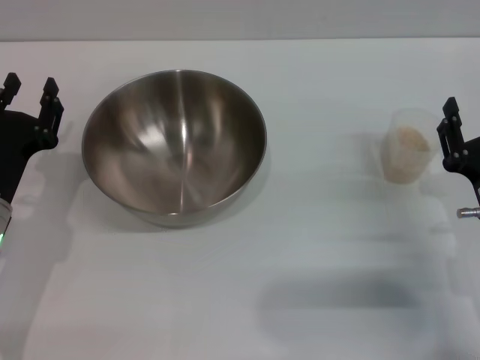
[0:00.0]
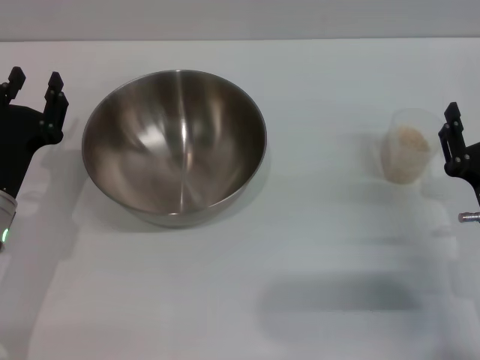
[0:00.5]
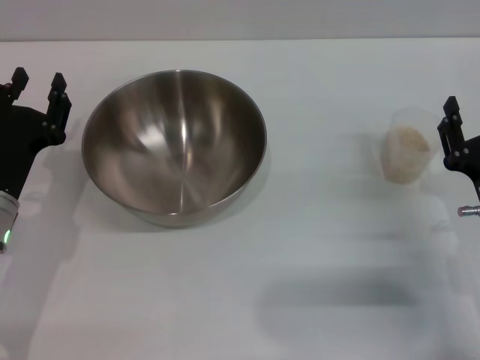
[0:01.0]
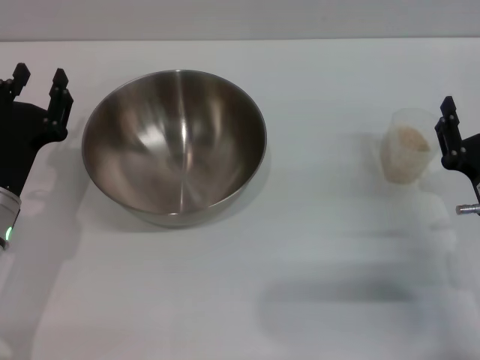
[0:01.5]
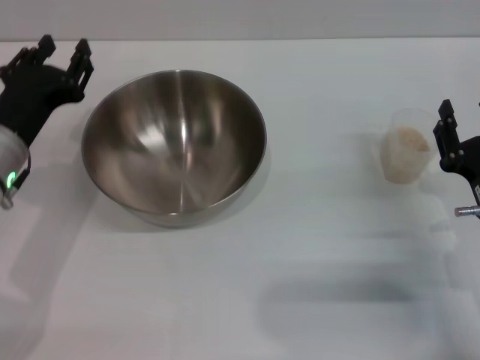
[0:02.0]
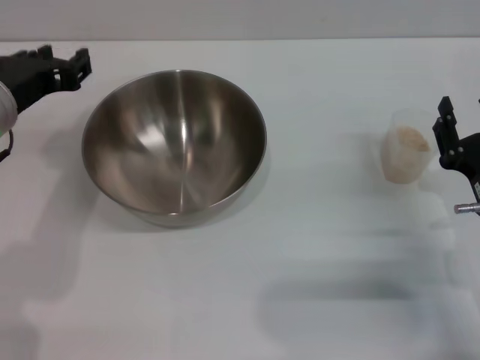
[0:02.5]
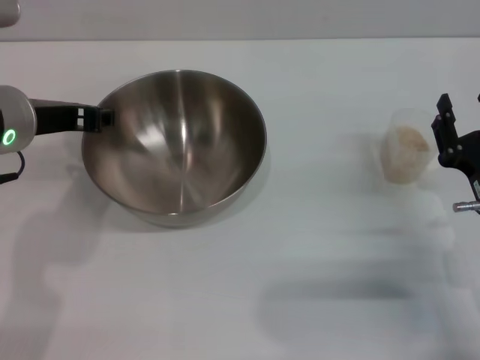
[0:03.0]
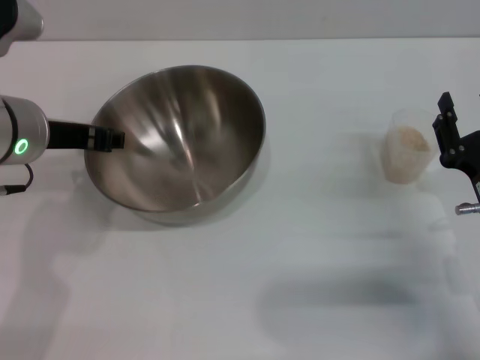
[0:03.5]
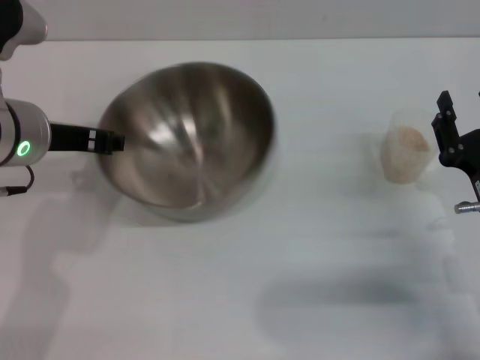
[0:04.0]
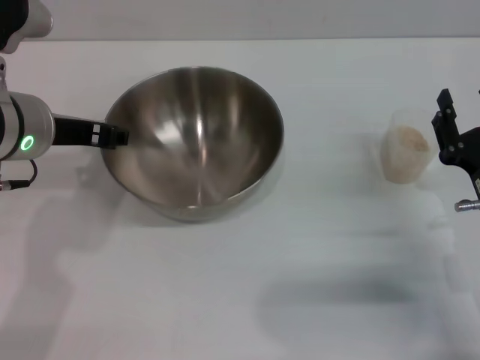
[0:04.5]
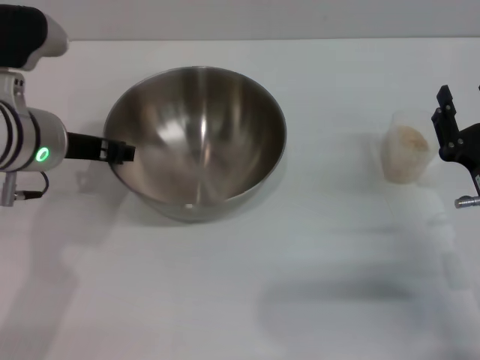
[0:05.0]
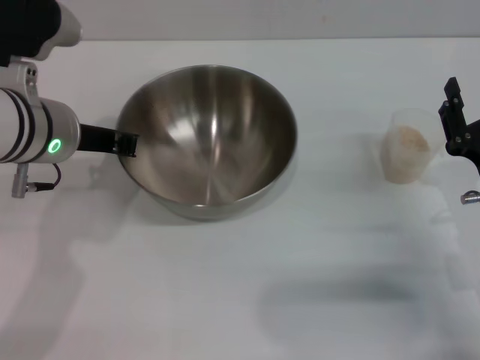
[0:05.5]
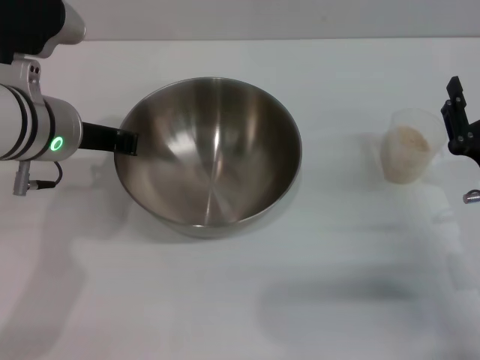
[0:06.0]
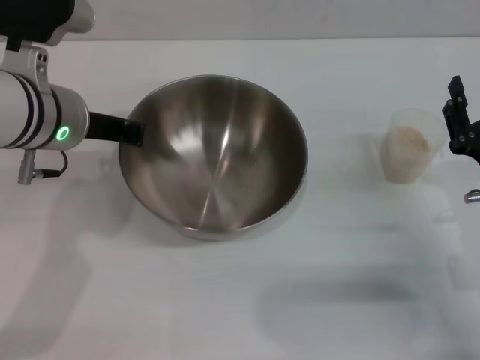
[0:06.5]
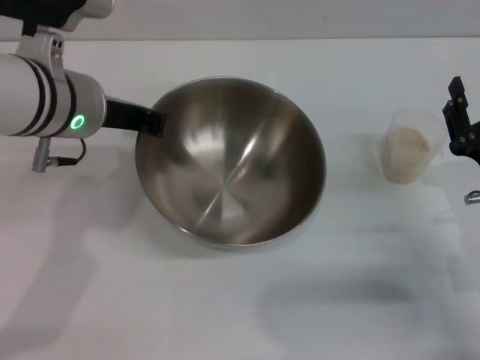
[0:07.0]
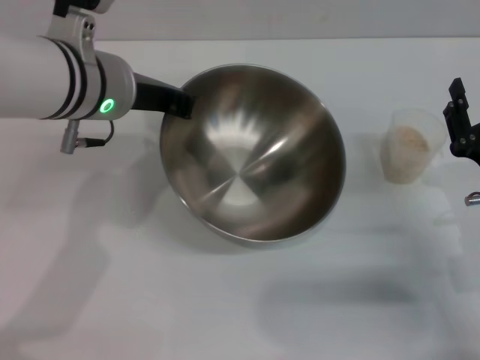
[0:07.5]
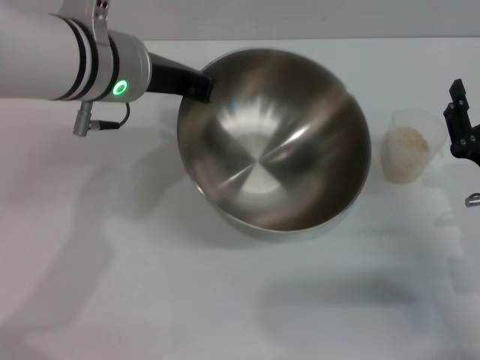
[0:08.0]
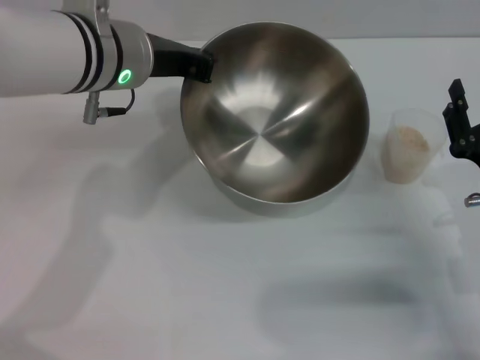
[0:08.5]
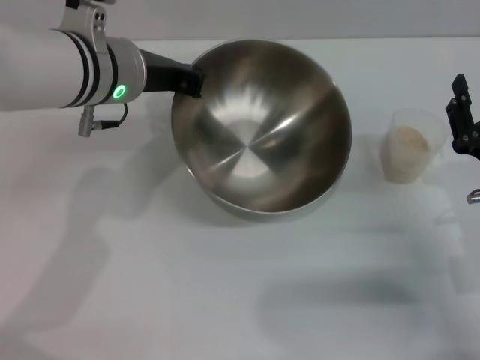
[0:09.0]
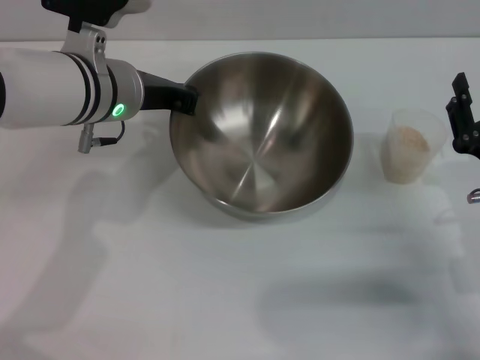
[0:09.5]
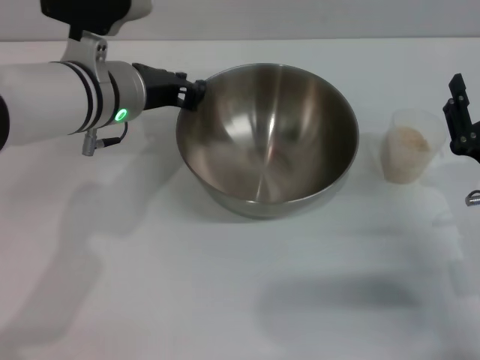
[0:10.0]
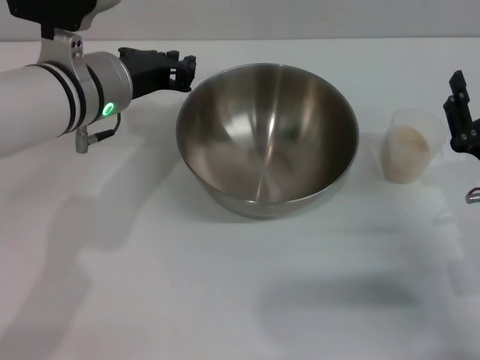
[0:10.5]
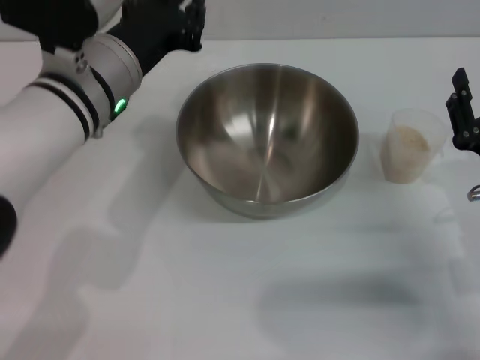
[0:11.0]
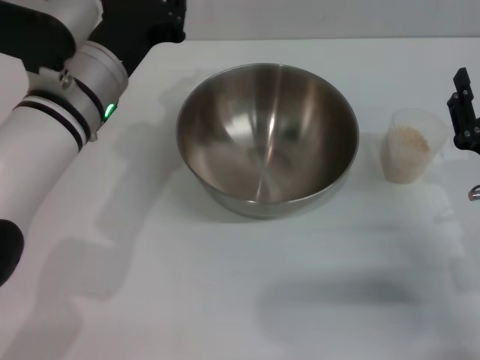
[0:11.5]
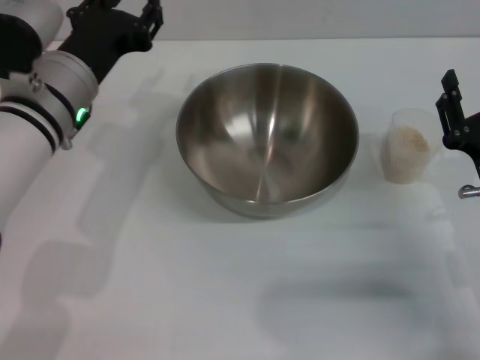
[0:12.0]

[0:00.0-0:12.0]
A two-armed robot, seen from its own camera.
Task of the whole recording: Place the bowl in the middle of the table with one hand and pour the rice from the grain cup into it with the other hand.
Step, 0:00.0 to 0:07.0: Pick up the bowl with the left gripper.
0:00.0 to 0:02.0: The left gripper travels upward by approximately 5 cm.
0:02.0 to 0:04.0: The left gripper heads upward, covering some 5 cm.
0:04.0 to 0:06.0: The left gripper closes.
0:06.0 to 0:08.0: The left gripper travels to the right by some 5 cm.
0:08.0 to 0:10.0: The left gripper is displaced downward by approximately 5 cm.

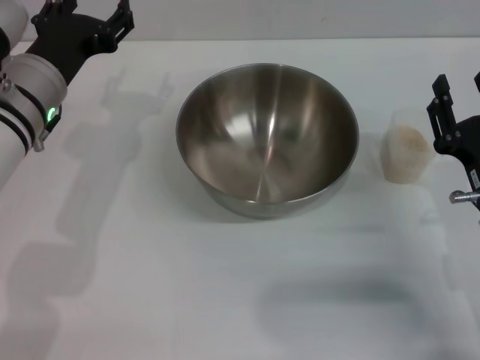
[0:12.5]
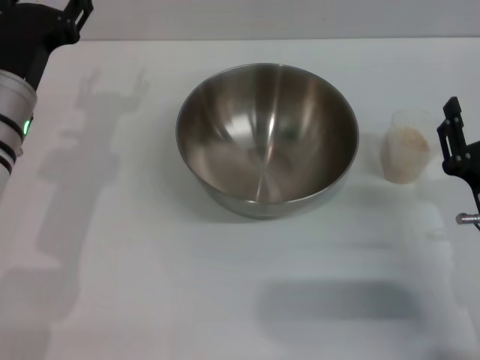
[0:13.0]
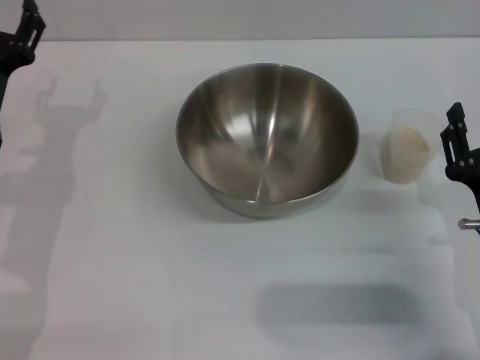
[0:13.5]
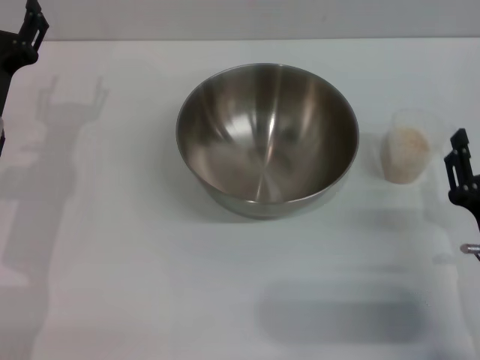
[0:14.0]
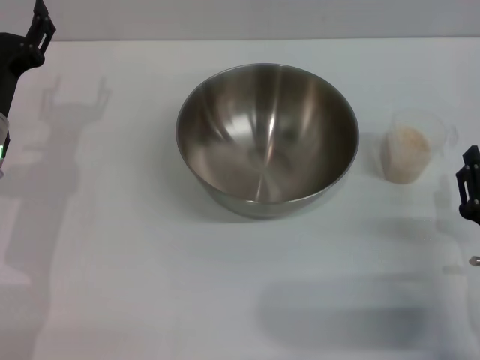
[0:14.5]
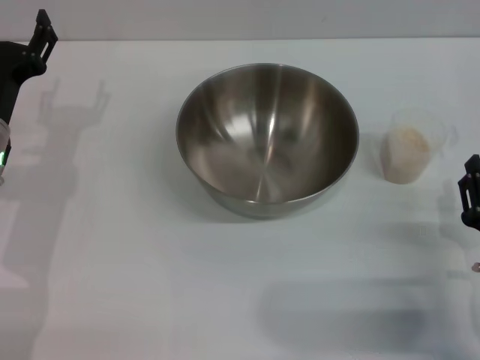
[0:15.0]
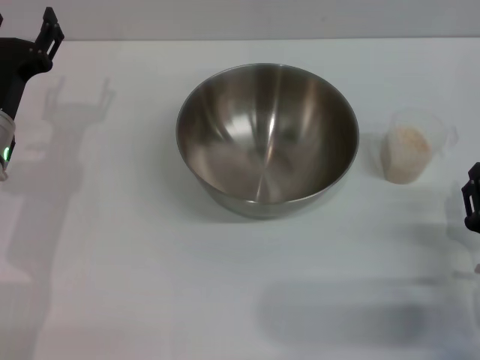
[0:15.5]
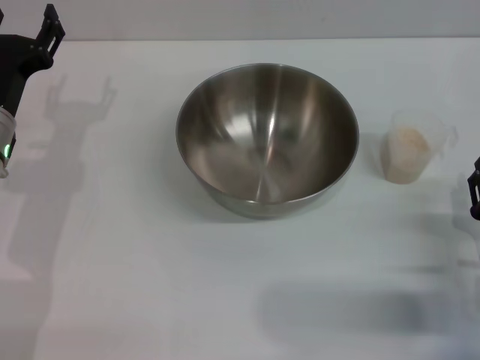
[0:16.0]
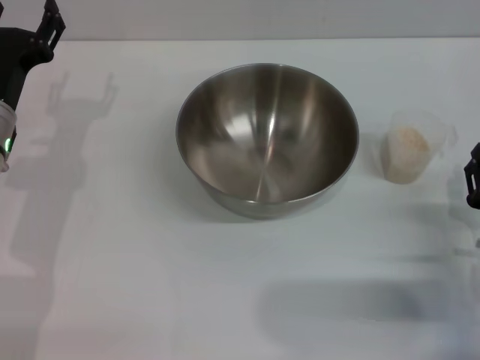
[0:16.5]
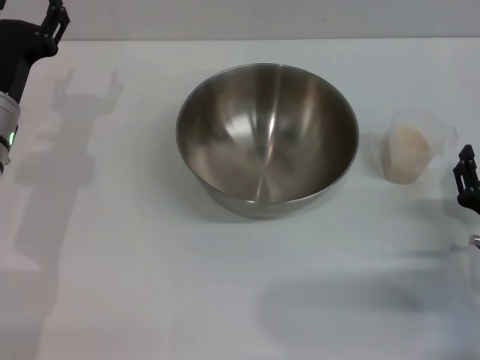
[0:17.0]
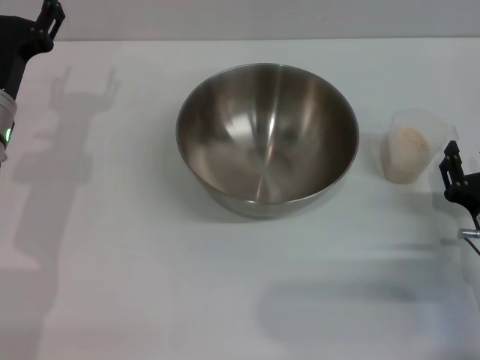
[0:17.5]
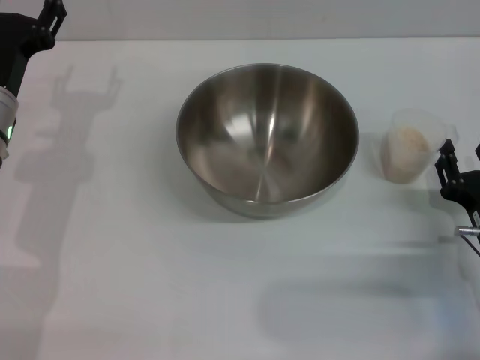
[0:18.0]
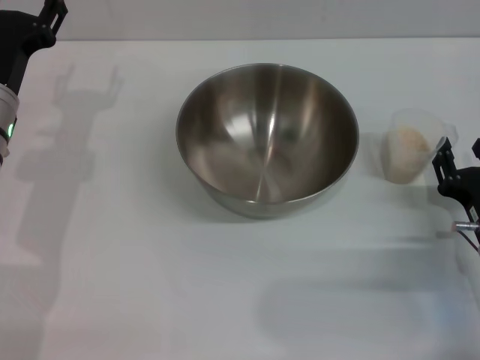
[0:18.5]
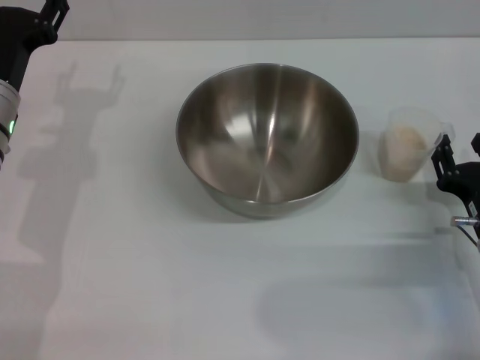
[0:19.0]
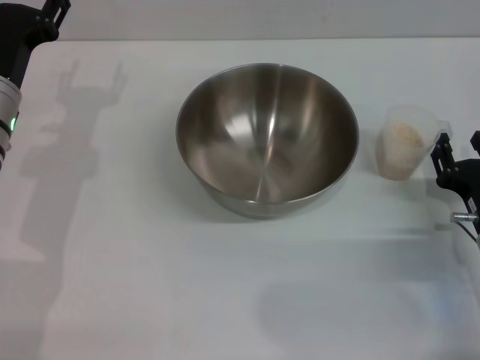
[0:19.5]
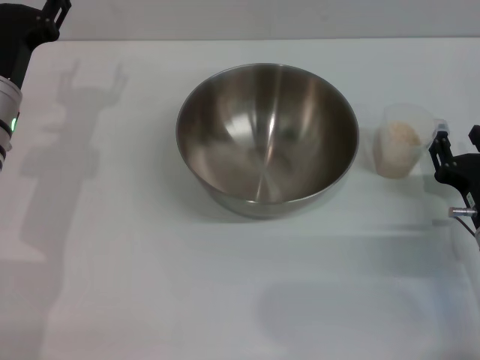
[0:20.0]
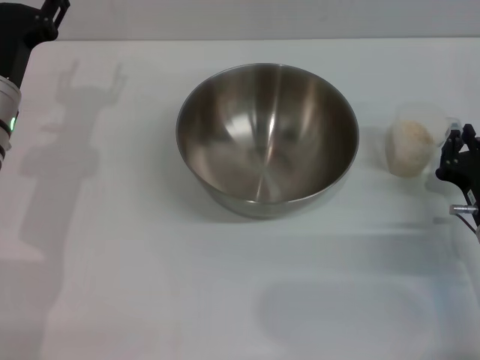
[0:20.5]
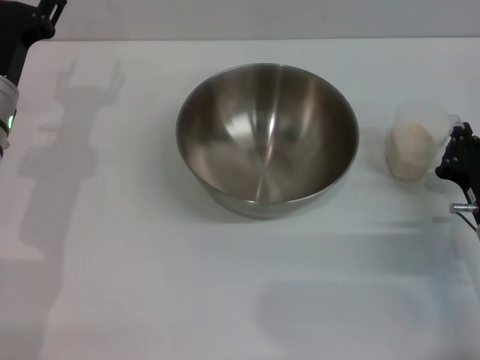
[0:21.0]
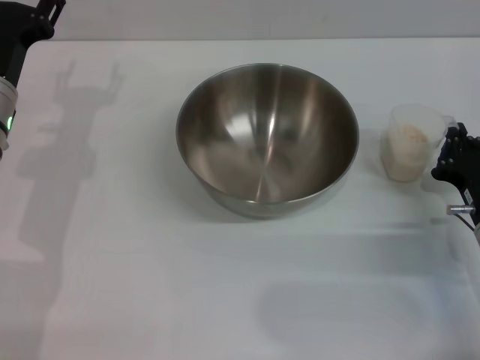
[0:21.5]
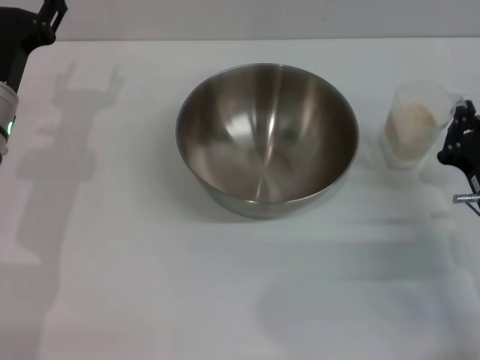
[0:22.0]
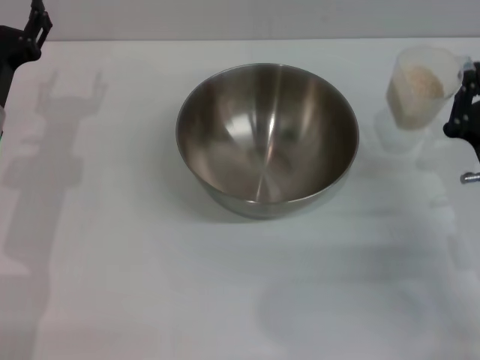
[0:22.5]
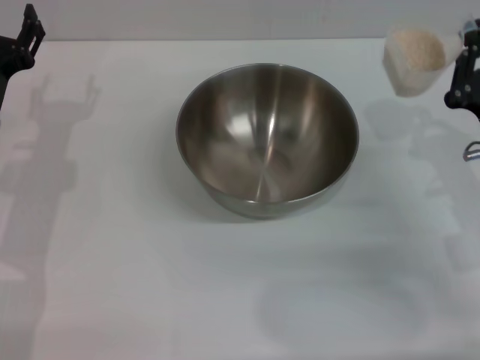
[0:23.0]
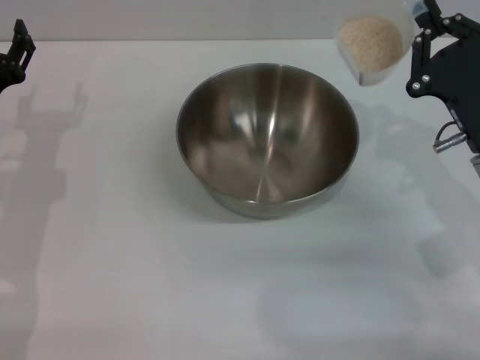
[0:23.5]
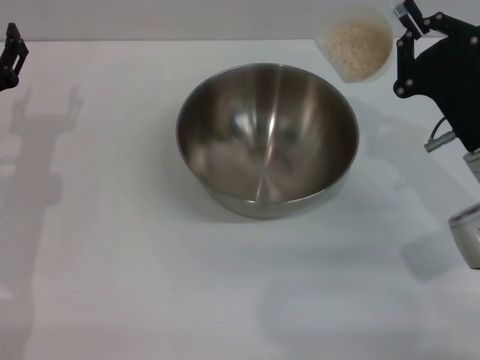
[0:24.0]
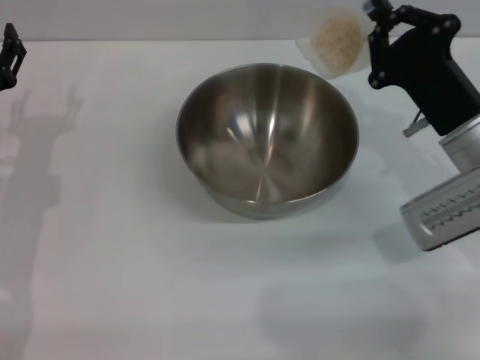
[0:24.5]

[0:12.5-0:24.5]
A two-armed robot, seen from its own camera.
Task of the whole recording: Place the bowl in the middle of the table with one hand and pour the rice from the grain cup into it with the other hand.
Step, 0:13.5 to 0:22.0: Pick up the cup with rice in it with the right gripper.
0:12.5 to 0:14.5: The right gripper goes roughly 5 cm backward, while the left gripper travels to the left and downward by approximately 10 cm.
0:14.5 to 0:18.5: The grippers make only small movements.
0:18.5 to 0:20.5: The right gripper closes up.
0:20.5 to 0:22.5: The right gripper closes its fingers.
0:22.5 to 0:24.5: The right gripper shifts roughly 5 cm forward.

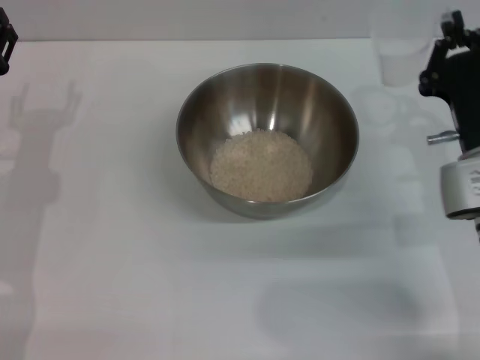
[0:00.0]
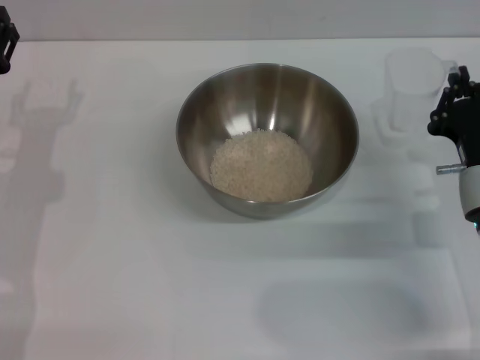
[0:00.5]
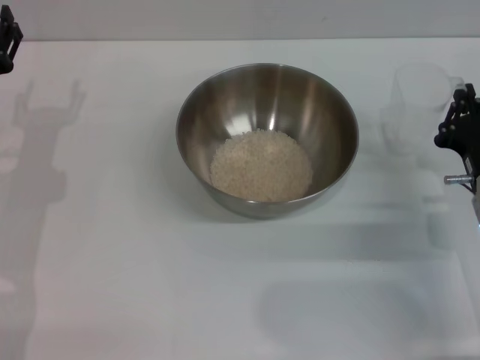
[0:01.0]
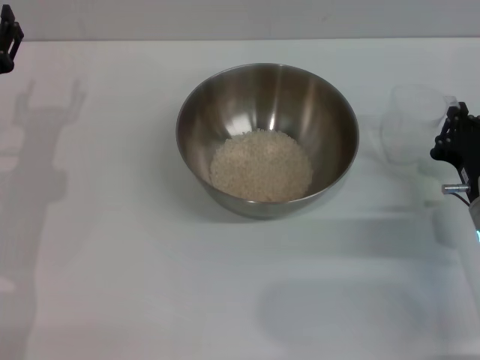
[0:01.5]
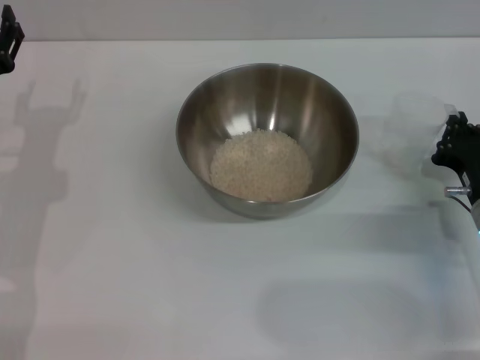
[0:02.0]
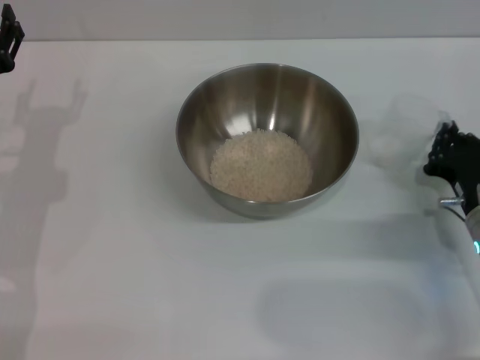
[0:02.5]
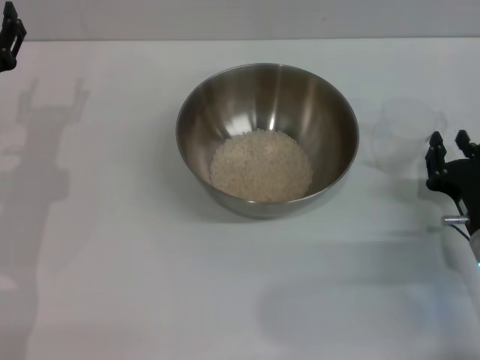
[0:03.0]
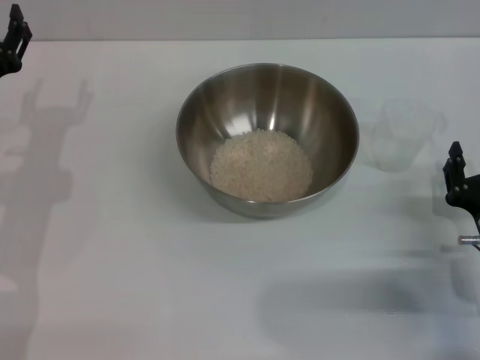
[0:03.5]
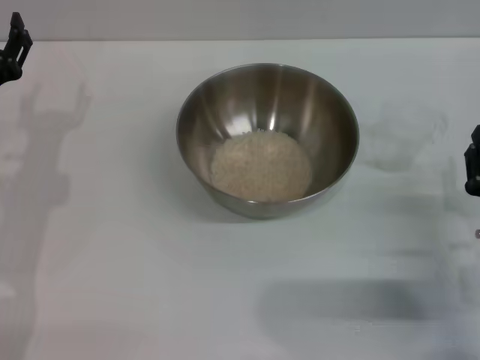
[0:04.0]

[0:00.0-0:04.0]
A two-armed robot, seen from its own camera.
Task of the whole recording: Place the bowl in the middle of the table with one hand and pour the rice from the grain cup into it with the other hand.
Step, 0:00.0 to 0:03.0: Place the cup on the table with the right gripper.
0:00.0 to 0:02.0: The right gripper heads downward, covering roughly 5 cm.
0:02.0 to 0:04.0: The right gripper moves backward, roughly 5 cm, and opens its fingers.
